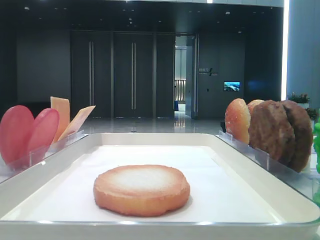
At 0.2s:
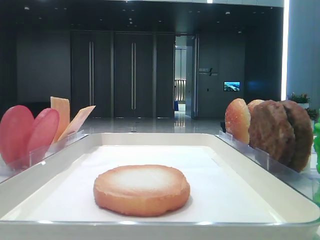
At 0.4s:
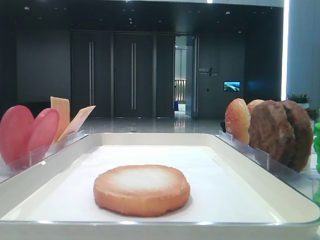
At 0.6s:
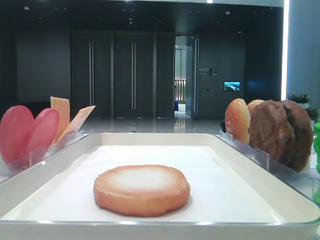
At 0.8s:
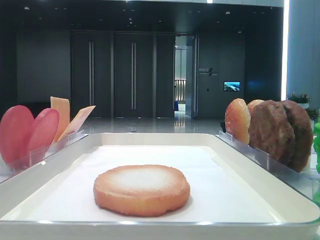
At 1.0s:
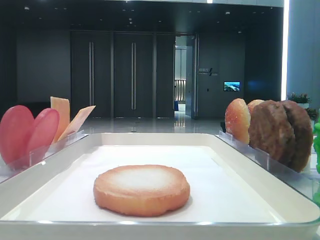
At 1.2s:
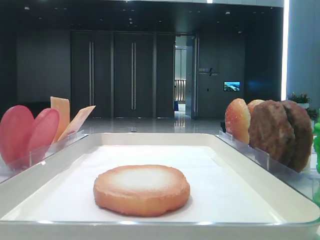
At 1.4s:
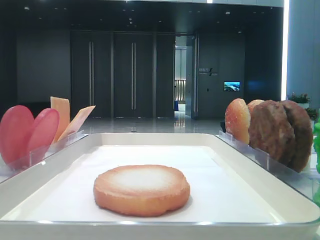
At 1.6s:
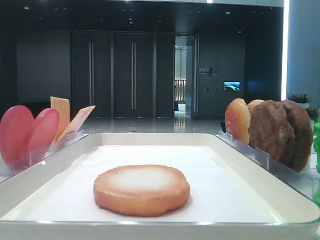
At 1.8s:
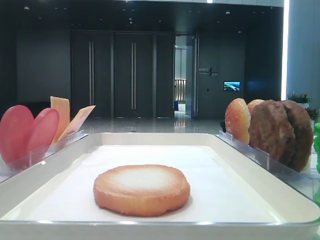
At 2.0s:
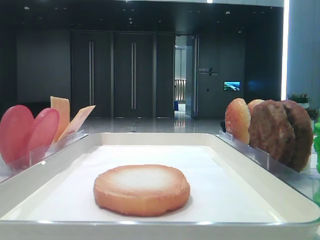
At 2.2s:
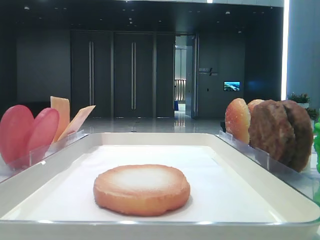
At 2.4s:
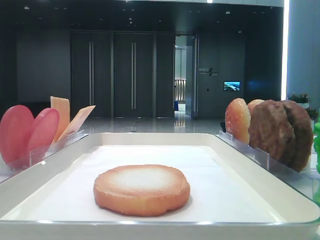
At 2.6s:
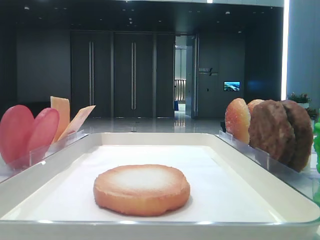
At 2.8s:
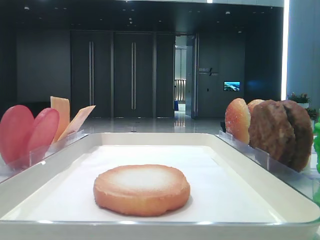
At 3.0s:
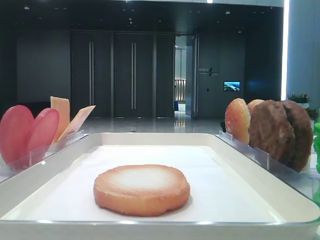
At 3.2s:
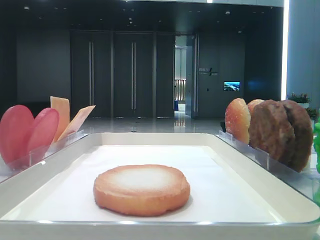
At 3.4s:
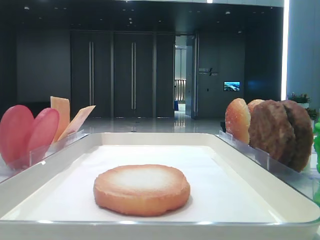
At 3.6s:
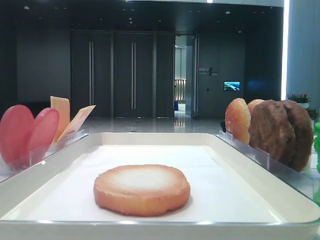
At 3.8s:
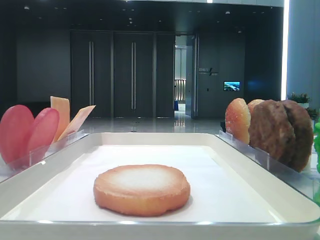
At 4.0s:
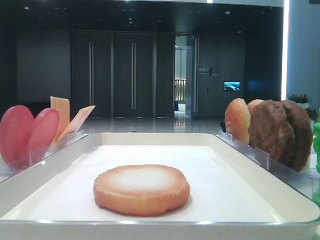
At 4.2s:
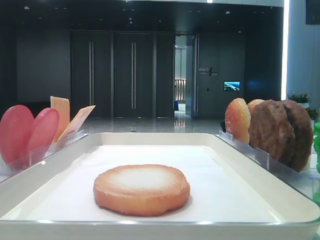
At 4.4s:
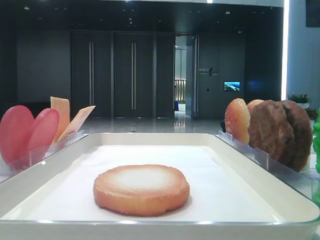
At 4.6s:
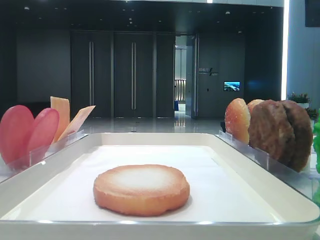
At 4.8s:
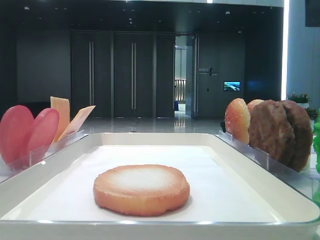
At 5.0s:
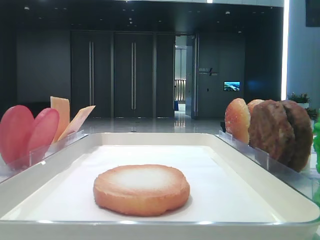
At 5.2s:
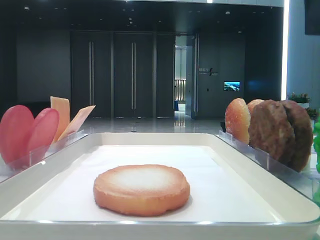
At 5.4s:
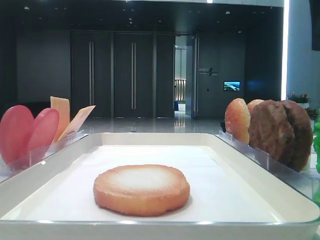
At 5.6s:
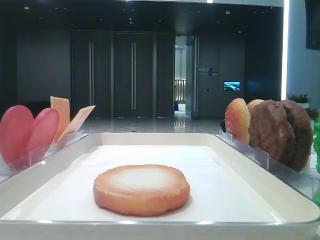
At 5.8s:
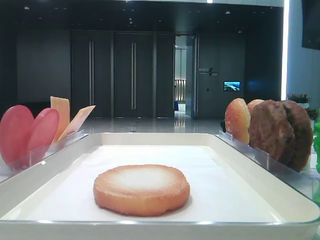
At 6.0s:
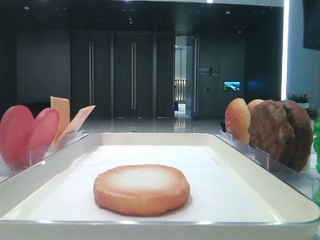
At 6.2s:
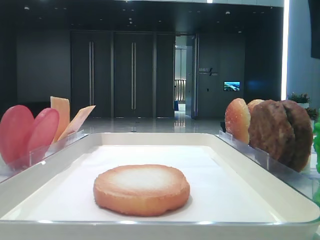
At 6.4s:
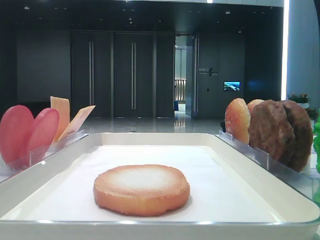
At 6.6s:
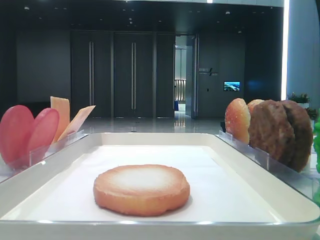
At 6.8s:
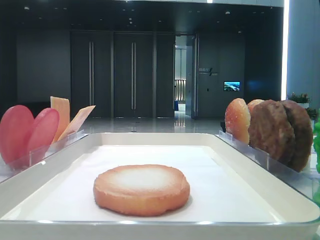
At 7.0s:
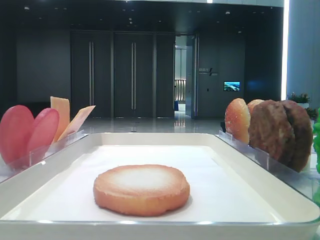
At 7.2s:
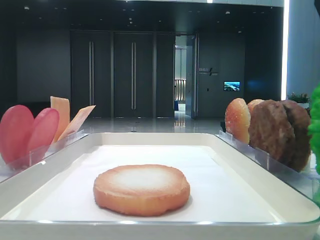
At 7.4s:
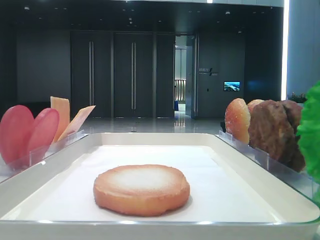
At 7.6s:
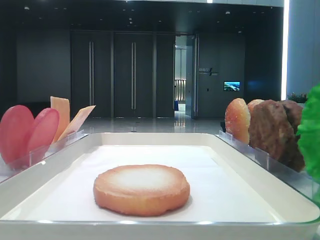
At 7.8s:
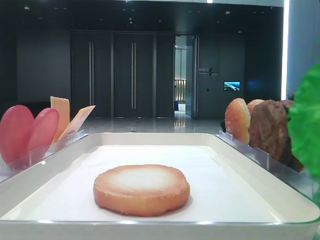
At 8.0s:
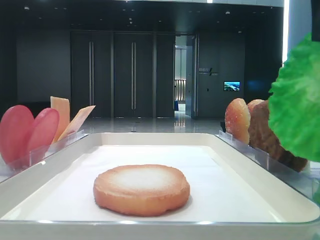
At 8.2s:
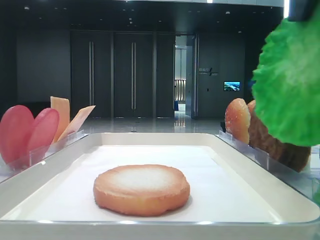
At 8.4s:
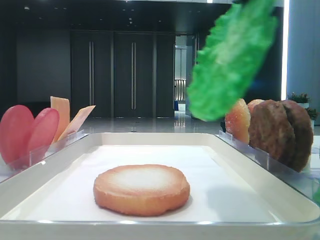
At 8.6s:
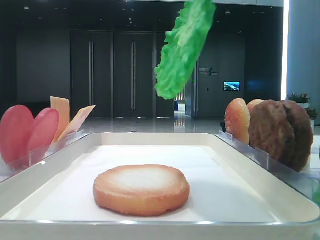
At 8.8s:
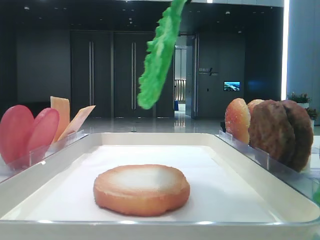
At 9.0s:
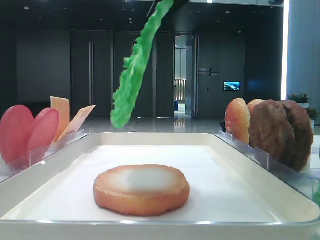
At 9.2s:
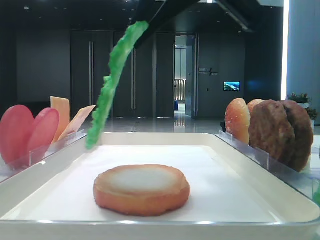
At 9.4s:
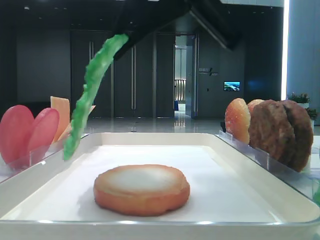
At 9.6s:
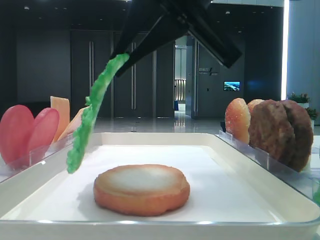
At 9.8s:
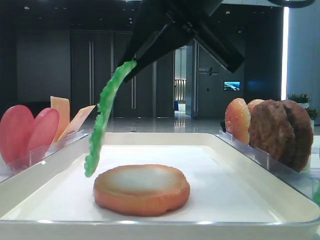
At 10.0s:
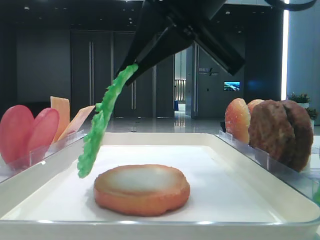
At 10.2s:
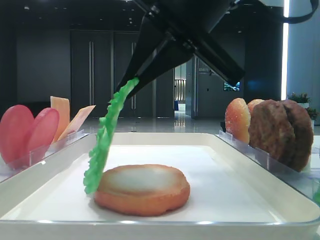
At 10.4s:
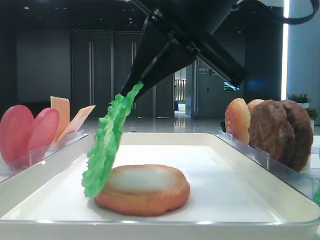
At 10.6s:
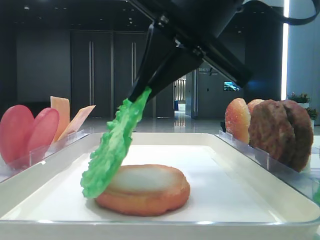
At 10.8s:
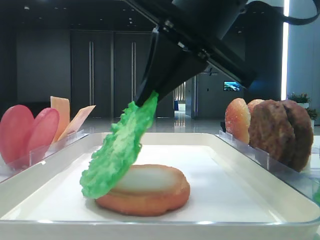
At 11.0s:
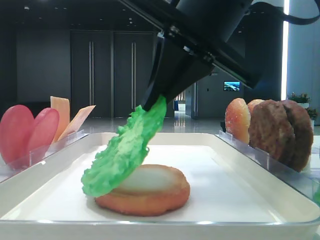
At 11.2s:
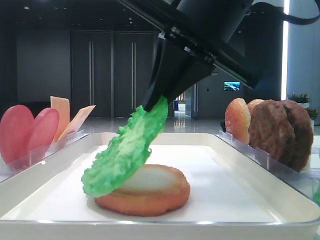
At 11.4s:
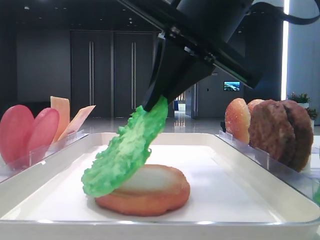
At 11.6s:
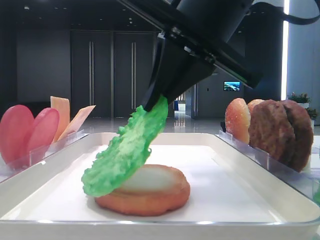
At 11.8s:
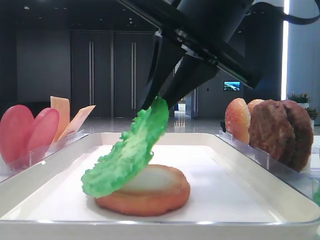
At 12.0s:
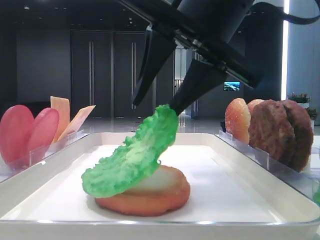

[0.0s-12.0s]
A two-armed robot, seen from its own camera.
Step, 0.0s to 7.4s: Grab the lettuce leaf with the right hand.
6.0s to 7.6s: The right gripper closes up.
7.6s to 9.0s: The right gripper travels to the left by approximately 10 cm.
9.0s to 10.4s: The right gripper travels downward by some 5 cm.
10.4s to 12.0s: The right gripper opens its fingers.

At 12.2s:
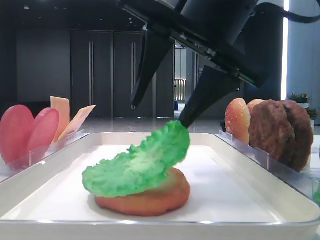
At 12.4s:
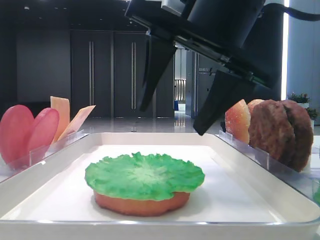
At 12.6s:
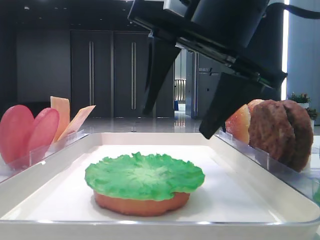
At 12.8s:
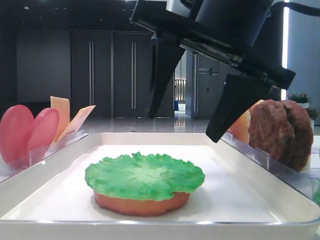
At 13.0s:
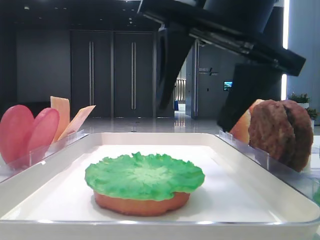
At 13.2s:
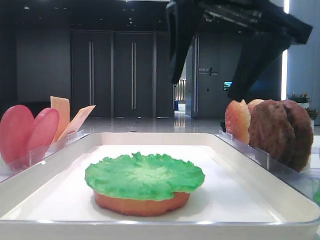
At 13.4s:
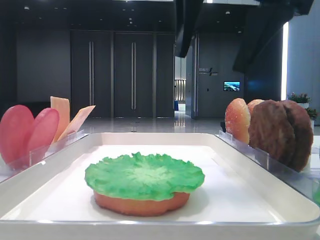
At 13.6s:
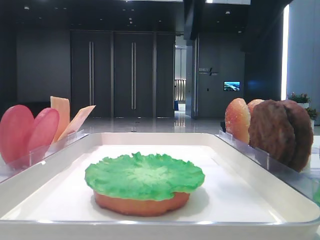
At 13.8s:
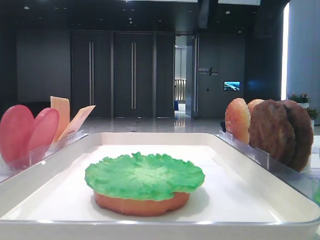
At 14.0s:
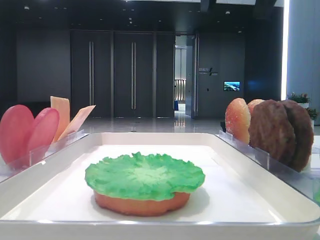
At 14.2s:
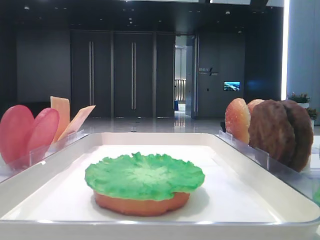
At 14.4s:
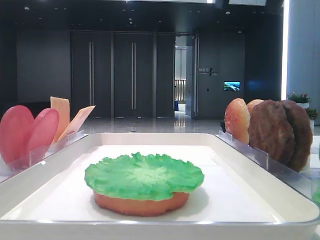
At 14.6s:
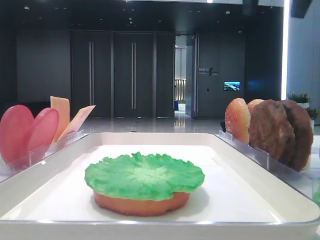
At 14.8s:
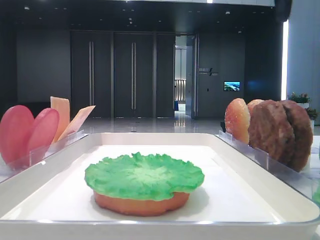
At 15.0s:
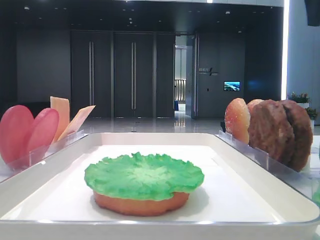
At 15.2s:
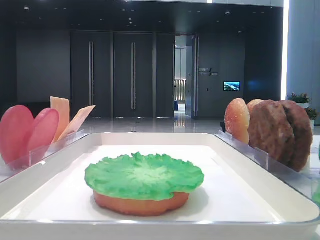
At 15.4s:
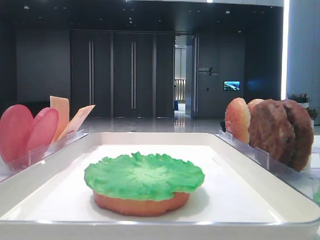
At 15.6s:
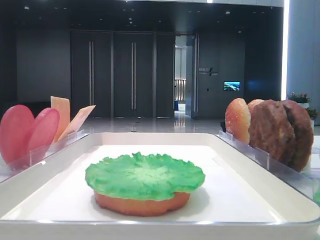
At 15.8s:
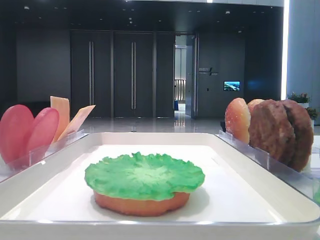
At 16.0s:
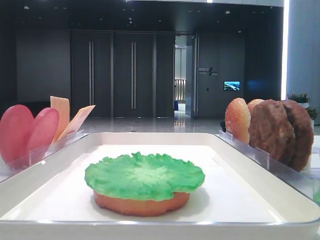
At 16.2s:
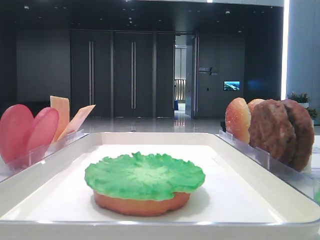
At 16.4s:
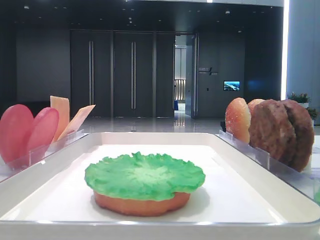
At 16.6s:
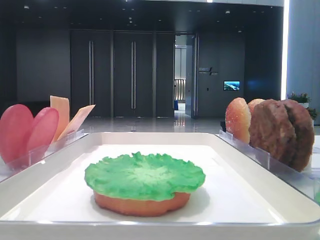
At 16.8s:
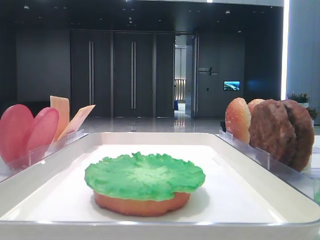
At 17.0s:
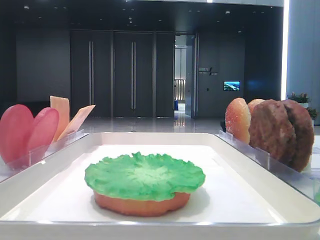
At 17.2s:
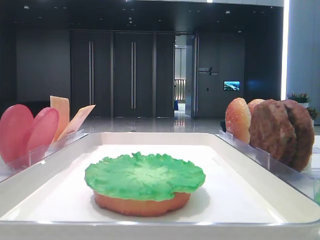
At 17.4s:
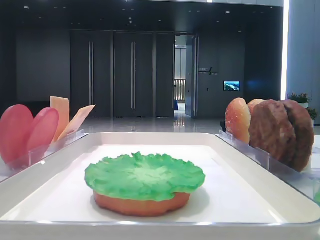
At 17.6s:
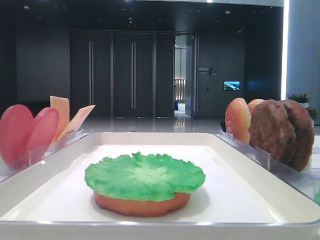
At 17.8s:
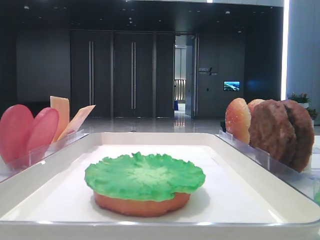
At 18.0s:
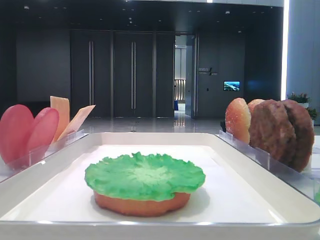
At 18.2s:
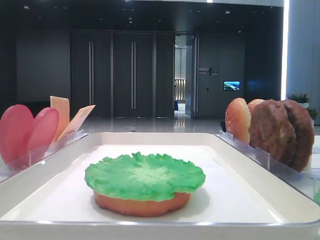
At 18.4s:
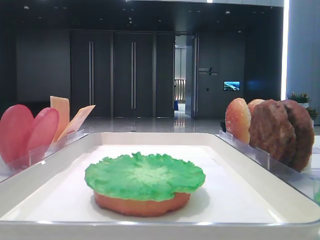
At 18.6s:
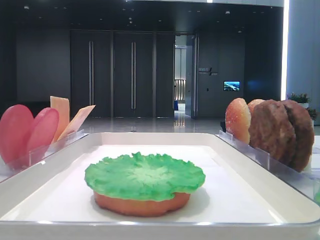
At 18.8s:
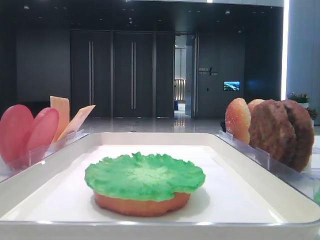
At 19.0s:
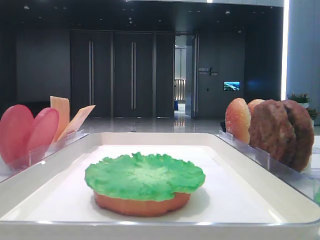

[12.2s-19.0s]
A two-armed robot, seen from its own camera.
12.2s to 13.6s: The right gripper shifts approximately 10 cm upward.
13.6s to 15.0s: The right gripper heads to the right and forward, covering about 15 cm.
15.0s to 16.2s: The right gripper heads backward and to the right, covering roughly 10 cm.

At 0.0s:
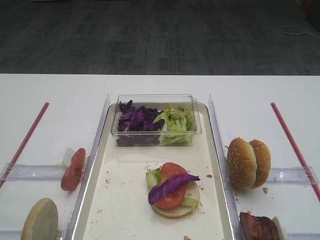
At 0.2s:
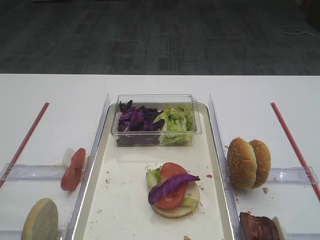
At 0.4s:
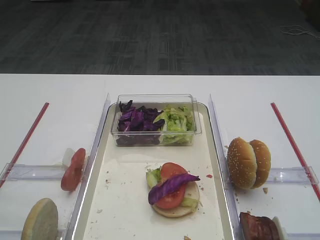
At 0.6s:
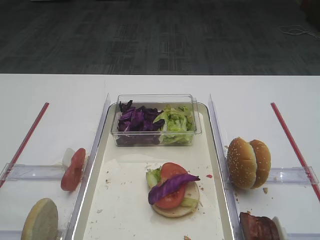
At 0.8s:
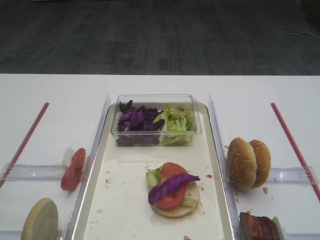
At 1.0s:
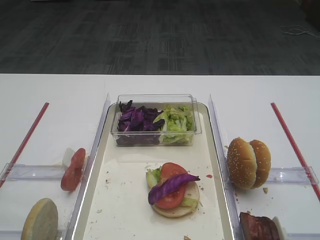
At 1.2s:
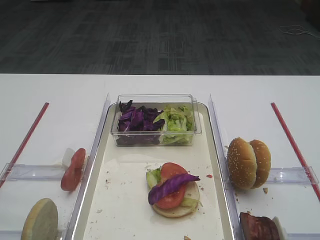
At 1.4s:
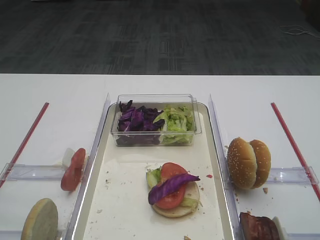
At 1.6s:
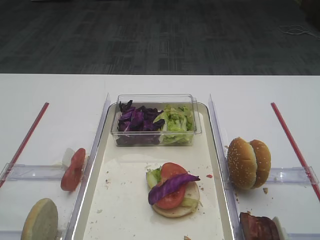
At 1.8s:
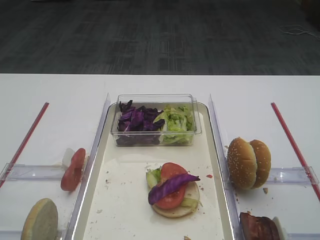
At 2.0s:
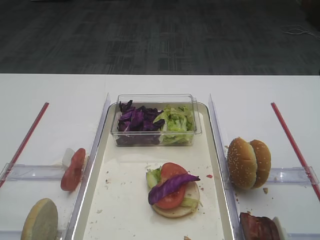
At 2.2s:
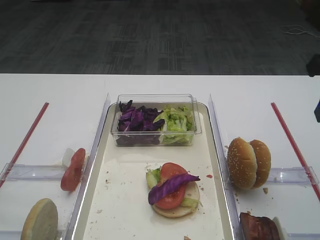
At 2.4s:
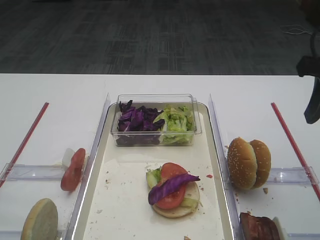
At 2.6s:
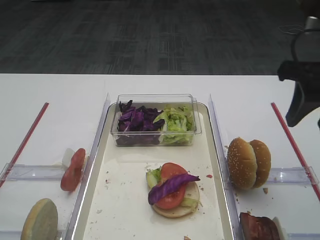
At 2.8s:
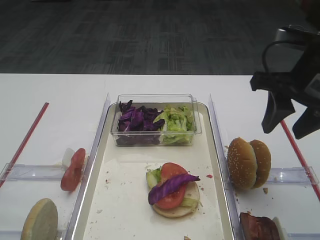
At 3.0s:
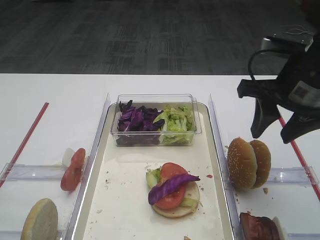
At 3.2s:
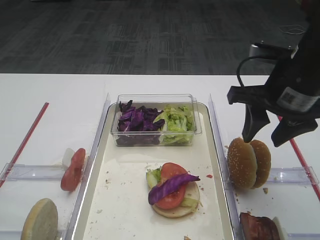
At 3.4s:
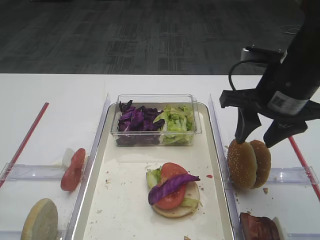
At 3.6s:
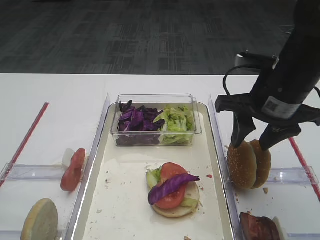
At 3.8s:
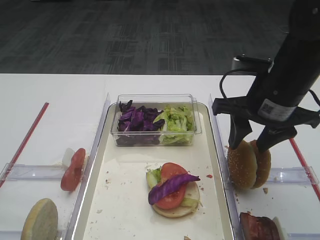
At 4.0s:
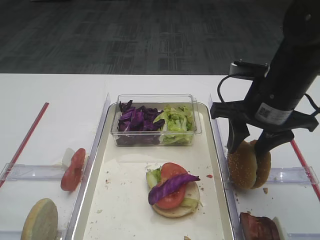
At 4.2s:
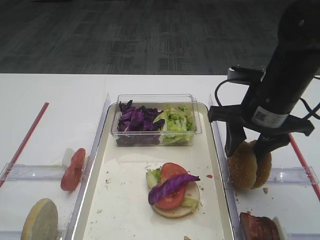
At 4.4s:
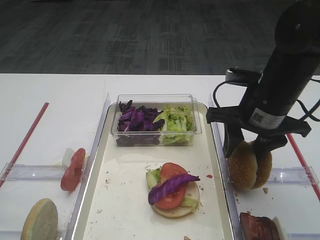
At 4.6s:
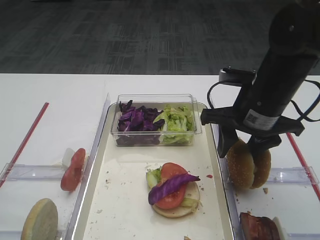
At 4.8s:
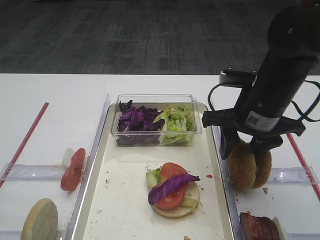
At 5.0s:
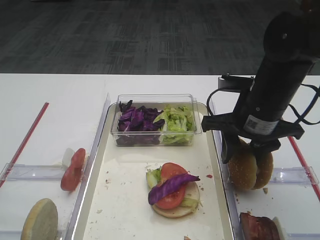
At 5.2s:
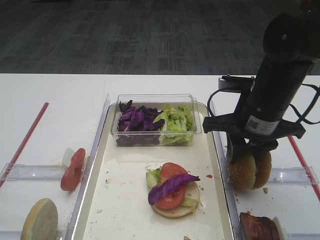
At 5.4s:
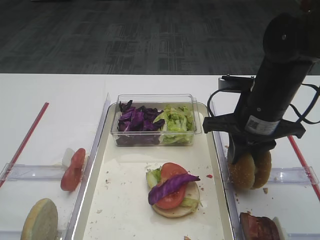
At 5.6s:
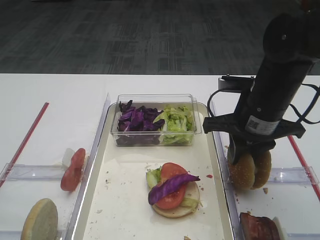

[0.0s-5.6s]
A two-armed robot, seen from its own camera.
1.4s to 2.8s: The right gripper moves forward, roughly 20 cm.
2.8s to 4.2s: The right gripper goes some 5 cm downward.
4.2s to 5.6s: There are only small adjustments of the grippers.
